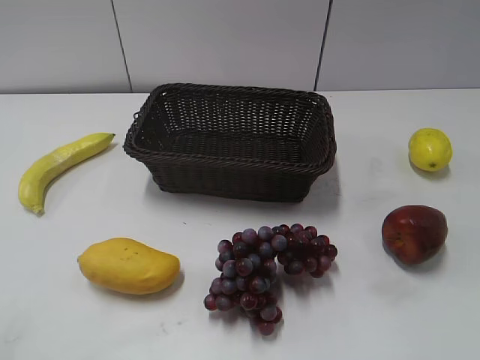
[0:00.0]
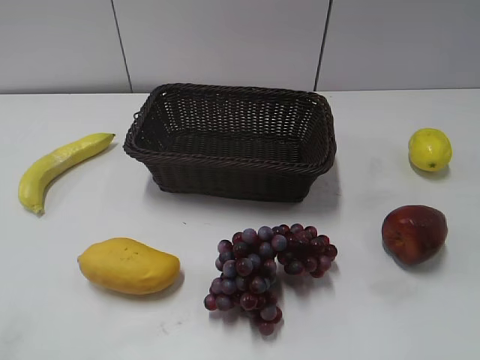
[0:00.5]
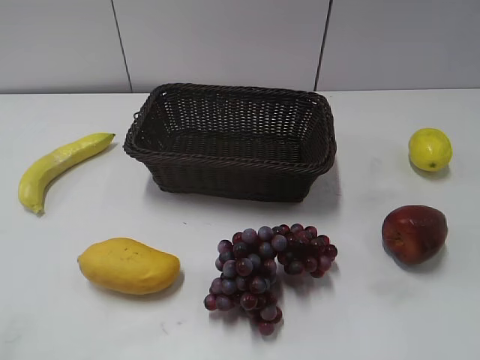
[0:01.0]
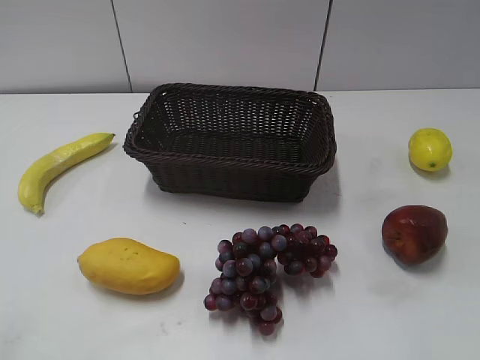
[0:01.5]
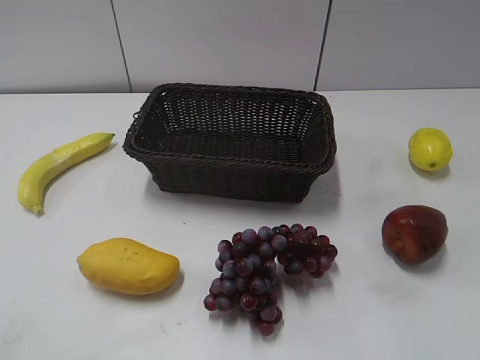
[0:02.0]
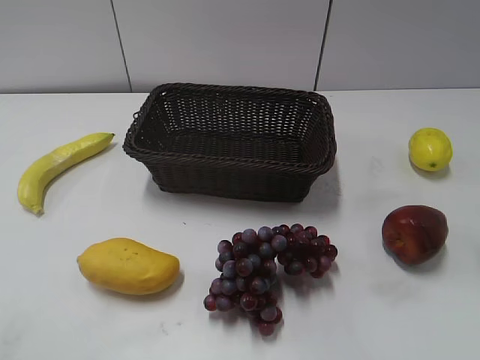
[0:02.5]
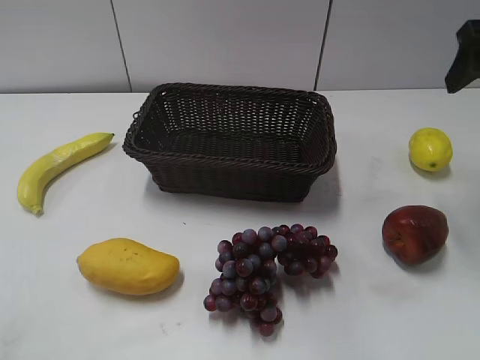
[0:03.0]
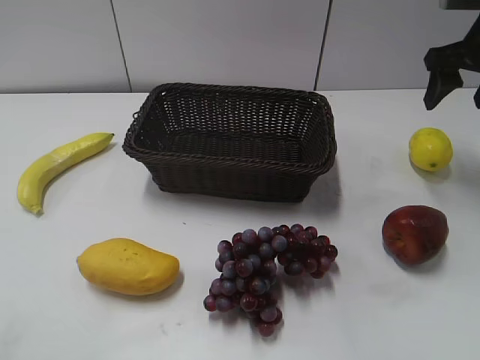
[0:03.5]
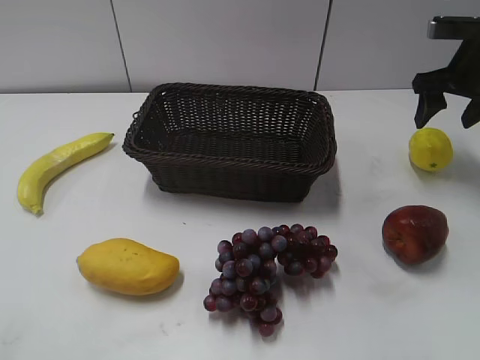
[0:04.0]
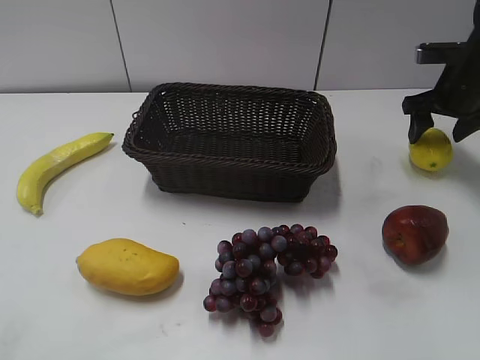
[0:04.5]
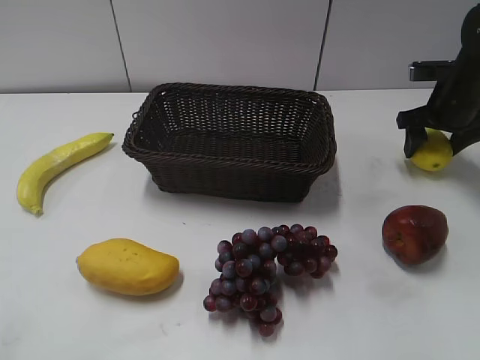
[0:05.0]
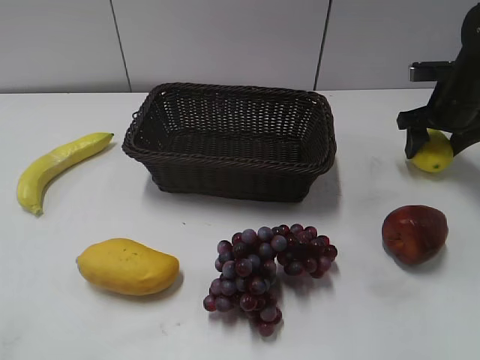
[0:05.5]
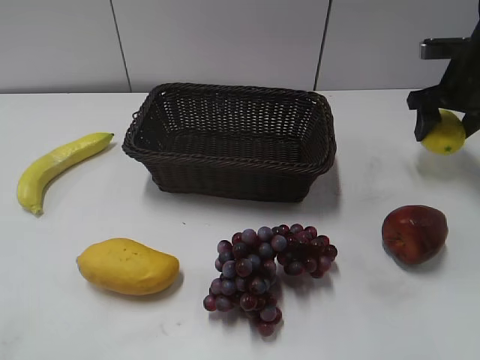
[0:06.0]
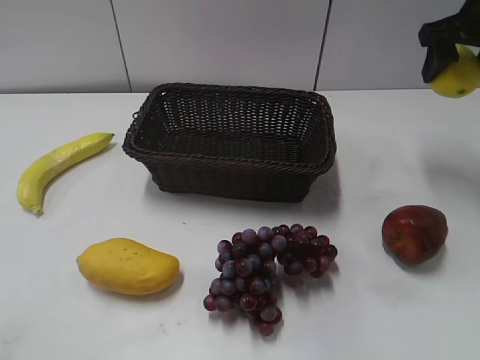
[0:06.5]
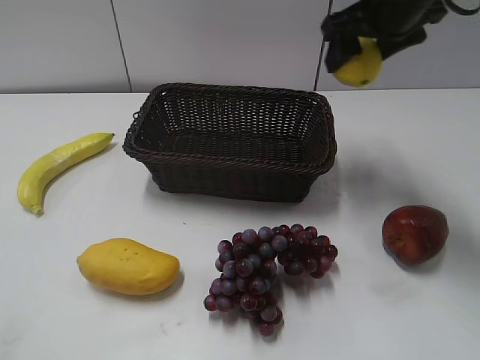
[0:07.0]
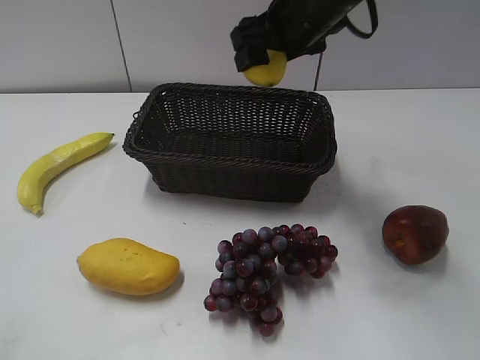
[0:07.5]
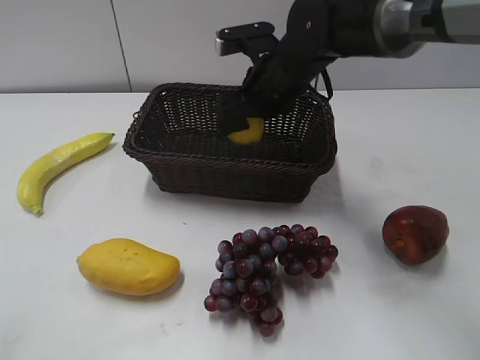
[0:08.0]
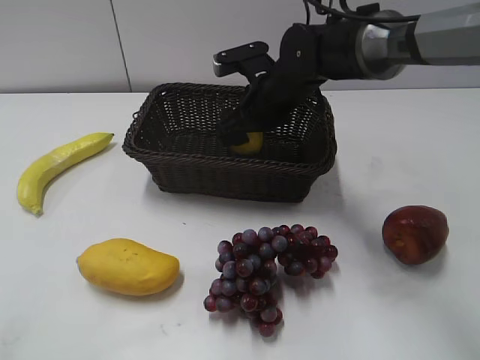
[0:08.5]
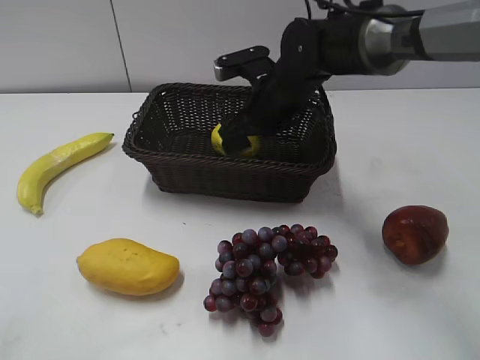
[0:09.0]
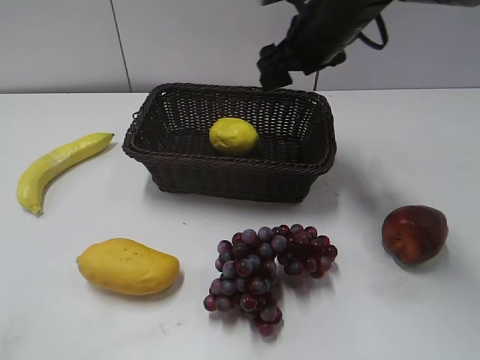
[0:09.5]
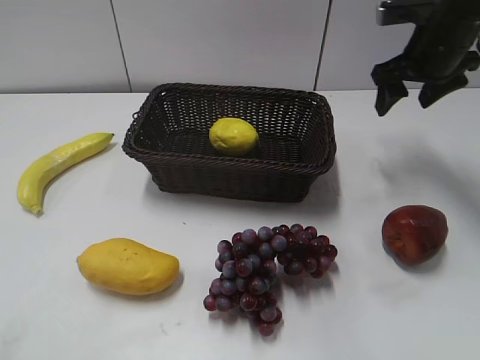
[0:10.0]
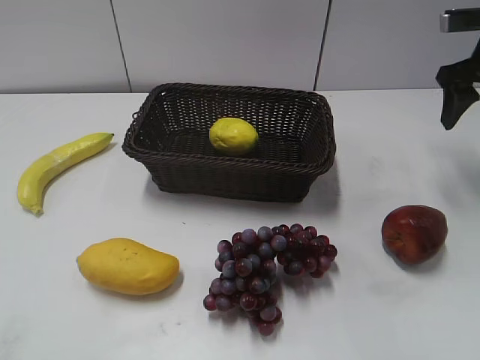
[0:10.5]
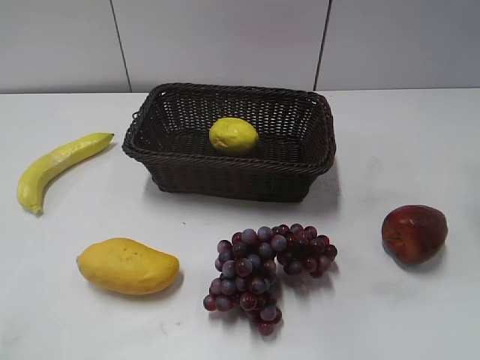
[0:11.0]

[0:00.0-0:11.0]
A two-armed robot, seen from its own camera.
Step, 0:03.0 to 0:04.5: Grasp the lemon with right gripper.
Step, 0:05.0 to 0:09.0: Place the lemon in the basket with right gripper.
0:02.0 to 0:03.5: The right gripper goes about 30 cm forward.
0:03.5 to 0:05.5: The right gripper moves downward, some 10 cm.
0:05.5 to 0:07.5: The right gripper moves to the left and upward, about 25 cm.
0:07.5 to 0:09.0: The right gripper heads downward, covering some 10 cm.
0:09.0 to 0:11.0: The right gripper moves to the right and upward, about 30 cm.

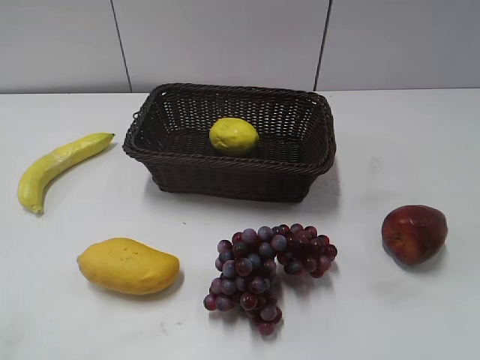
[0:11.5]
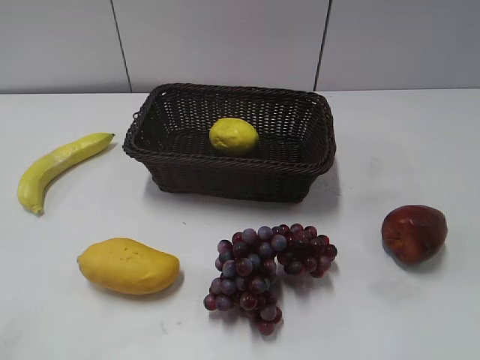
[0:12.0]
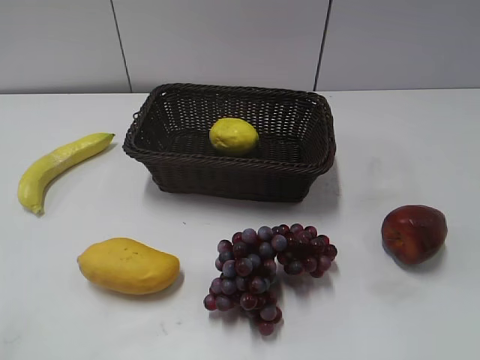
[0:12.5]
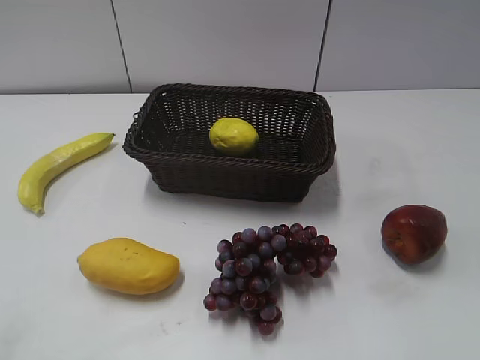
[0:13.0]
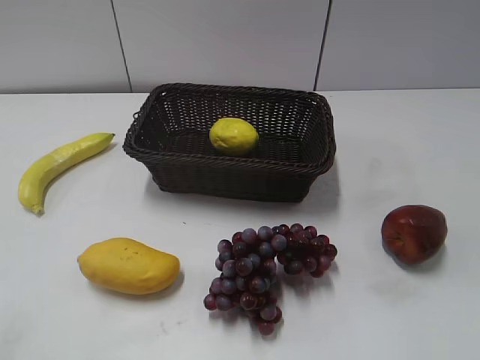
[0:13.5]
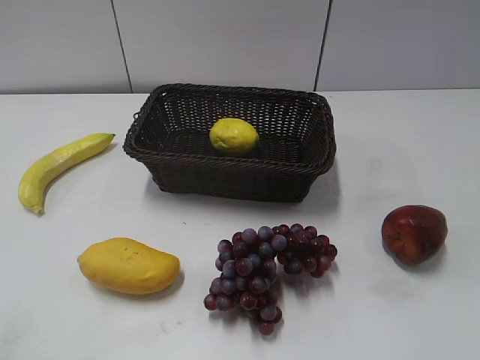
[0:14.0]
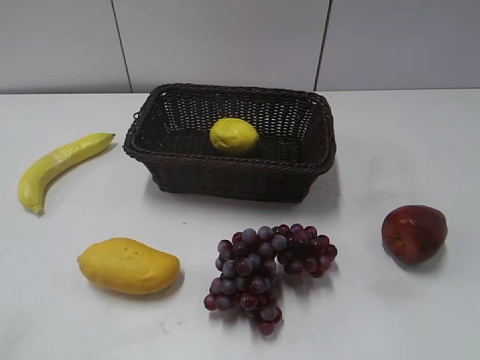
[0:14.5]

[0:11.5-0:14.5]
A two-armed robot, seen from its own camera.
0:13.0 to 0:14.5: Both grippers stay put.
